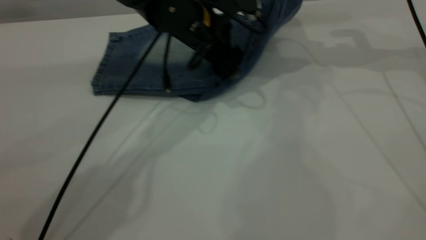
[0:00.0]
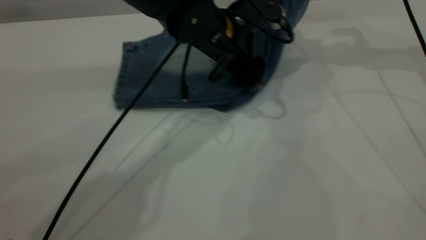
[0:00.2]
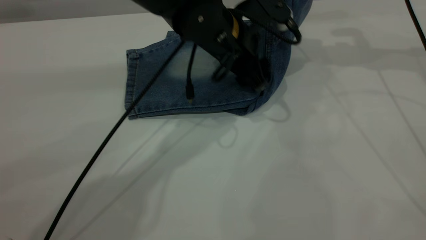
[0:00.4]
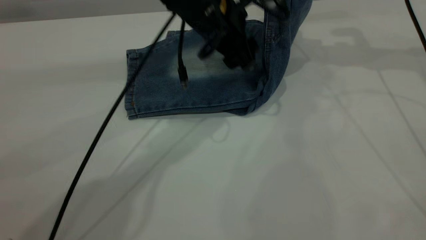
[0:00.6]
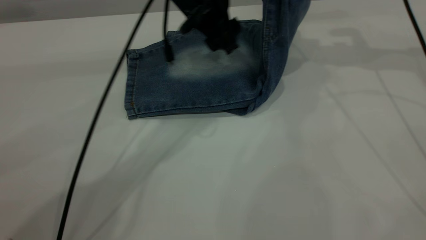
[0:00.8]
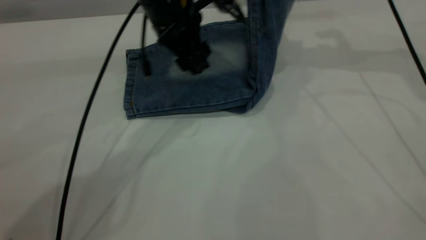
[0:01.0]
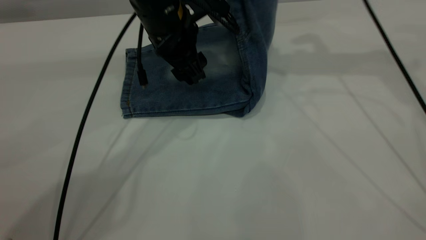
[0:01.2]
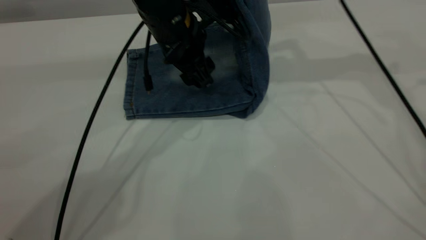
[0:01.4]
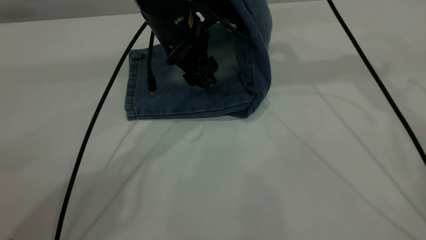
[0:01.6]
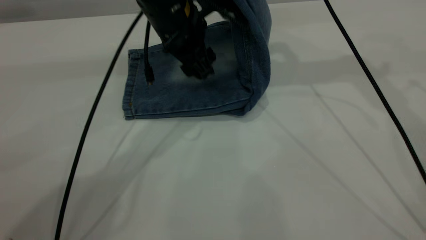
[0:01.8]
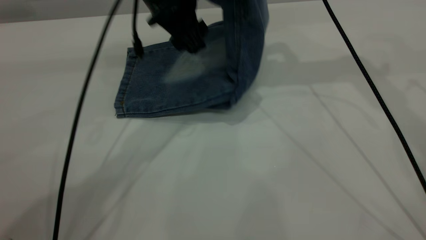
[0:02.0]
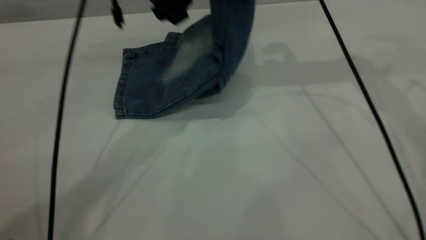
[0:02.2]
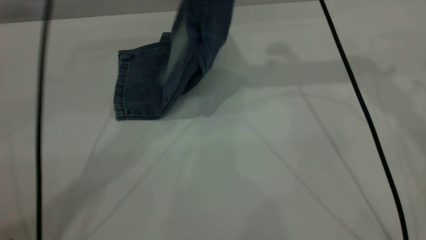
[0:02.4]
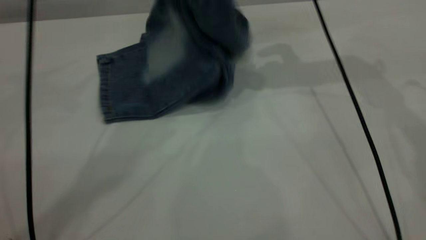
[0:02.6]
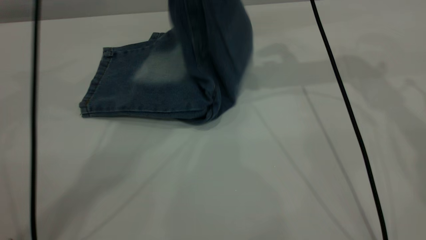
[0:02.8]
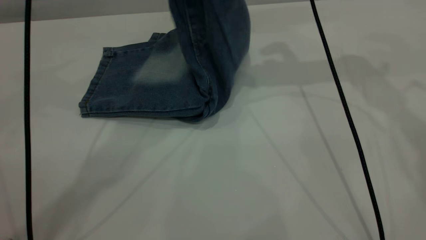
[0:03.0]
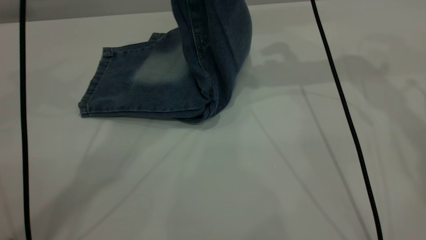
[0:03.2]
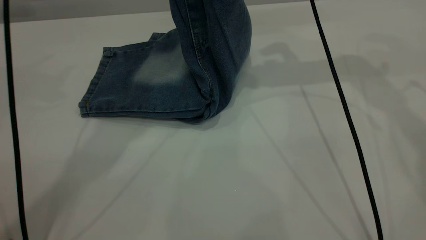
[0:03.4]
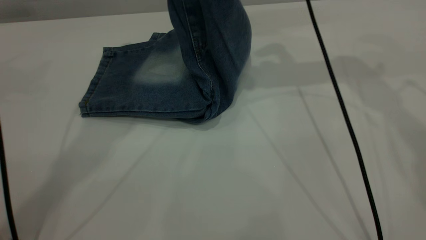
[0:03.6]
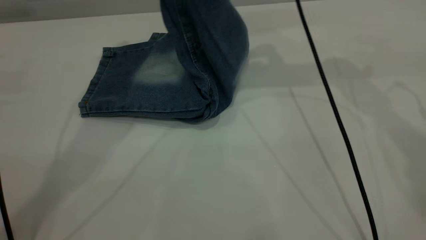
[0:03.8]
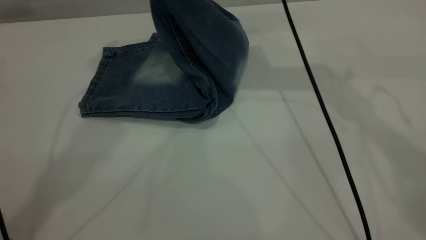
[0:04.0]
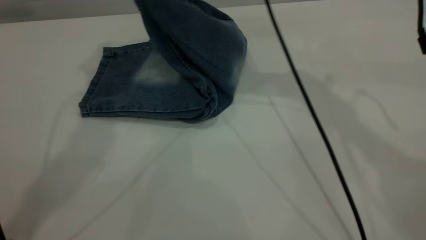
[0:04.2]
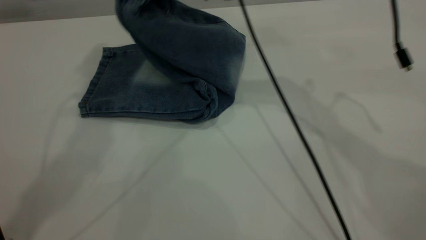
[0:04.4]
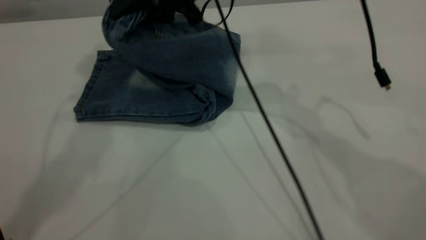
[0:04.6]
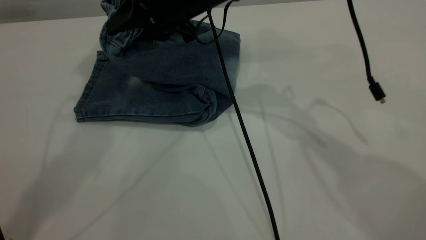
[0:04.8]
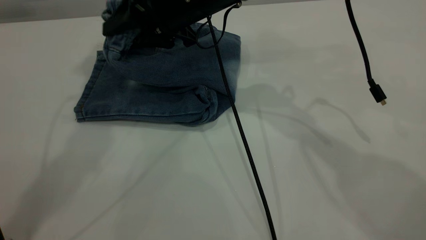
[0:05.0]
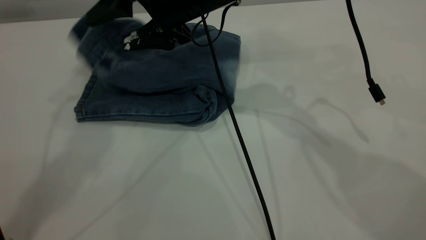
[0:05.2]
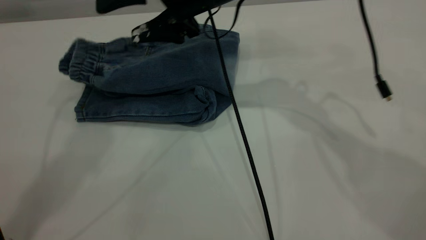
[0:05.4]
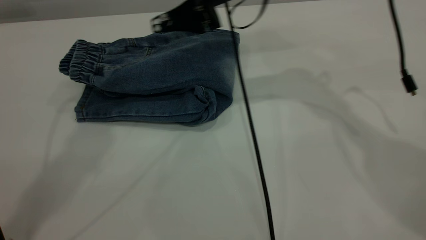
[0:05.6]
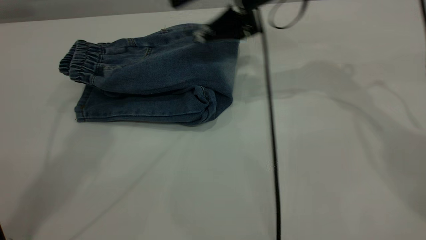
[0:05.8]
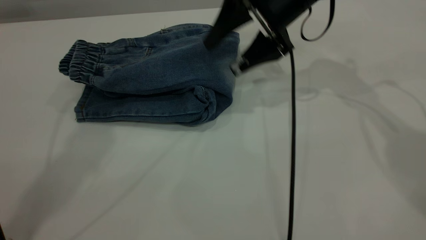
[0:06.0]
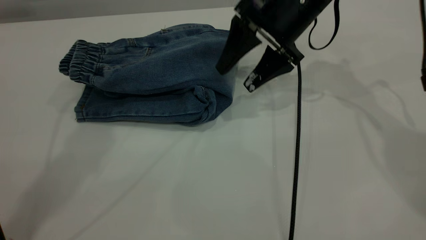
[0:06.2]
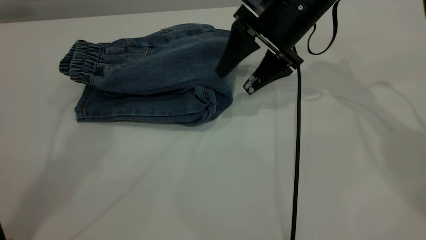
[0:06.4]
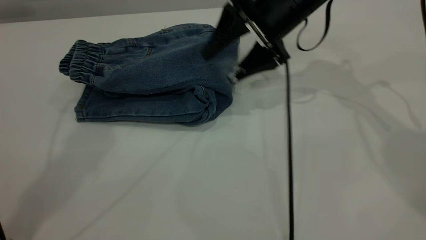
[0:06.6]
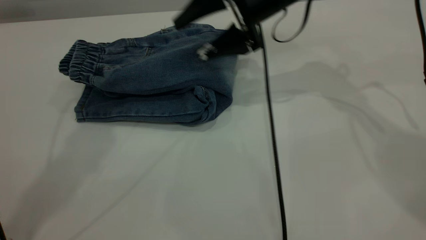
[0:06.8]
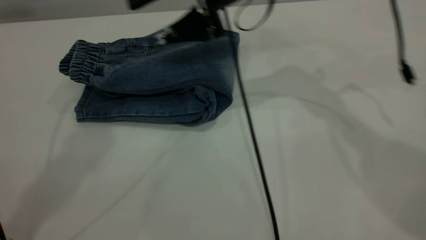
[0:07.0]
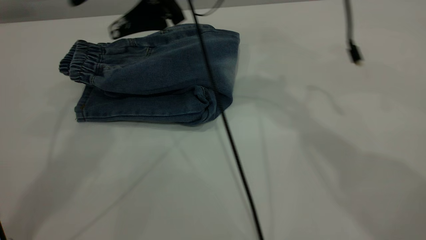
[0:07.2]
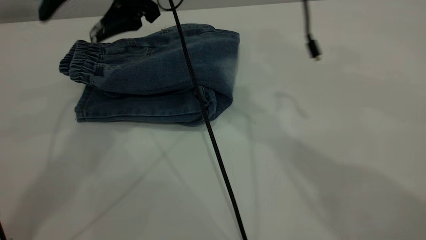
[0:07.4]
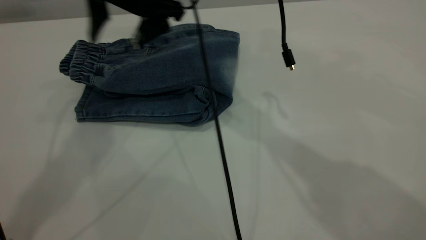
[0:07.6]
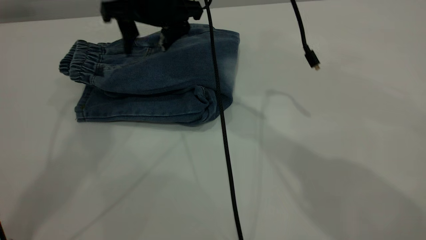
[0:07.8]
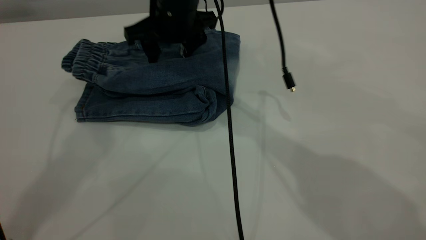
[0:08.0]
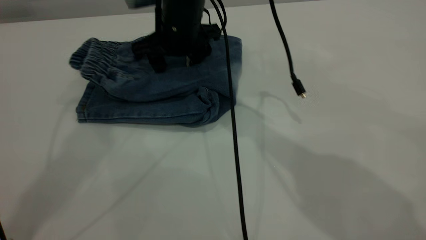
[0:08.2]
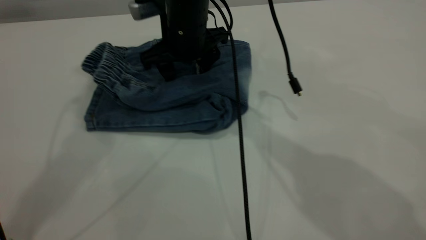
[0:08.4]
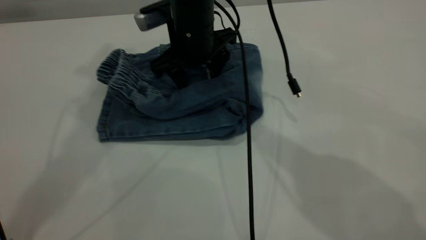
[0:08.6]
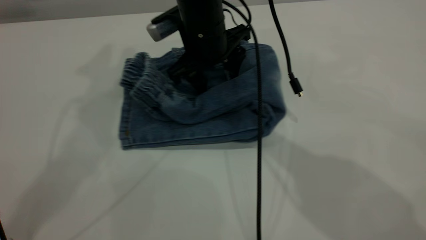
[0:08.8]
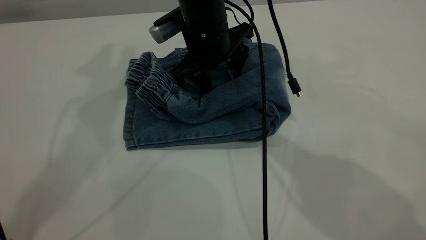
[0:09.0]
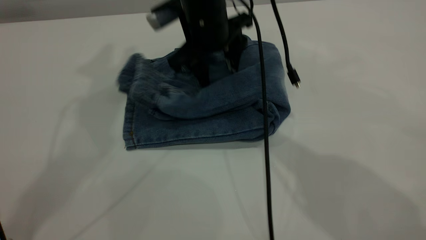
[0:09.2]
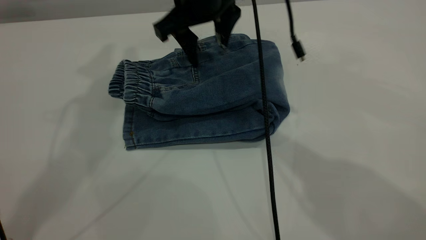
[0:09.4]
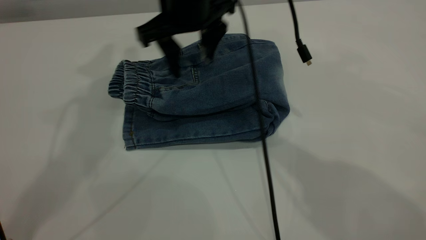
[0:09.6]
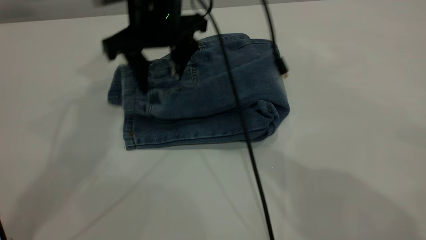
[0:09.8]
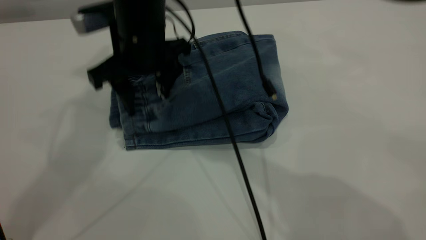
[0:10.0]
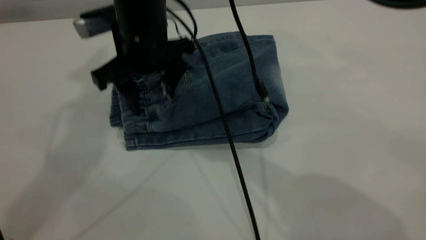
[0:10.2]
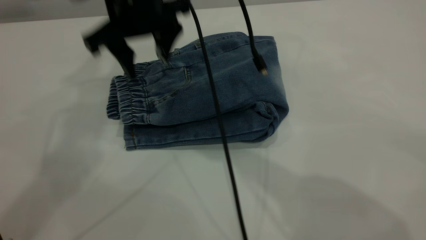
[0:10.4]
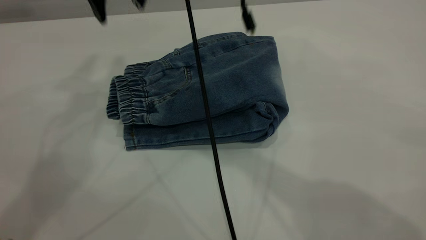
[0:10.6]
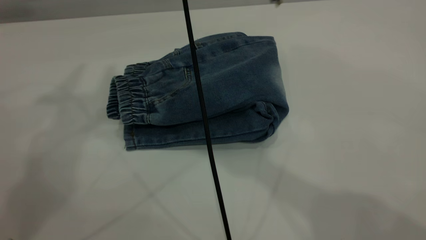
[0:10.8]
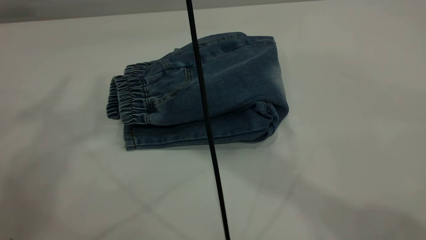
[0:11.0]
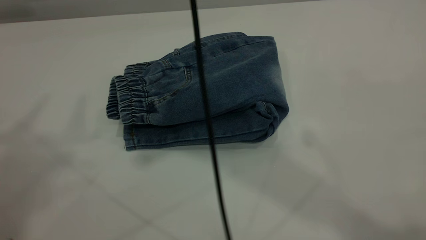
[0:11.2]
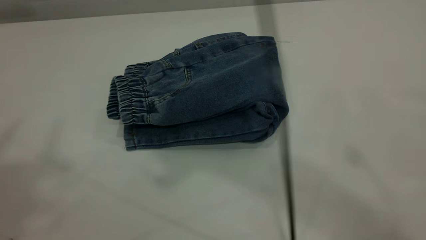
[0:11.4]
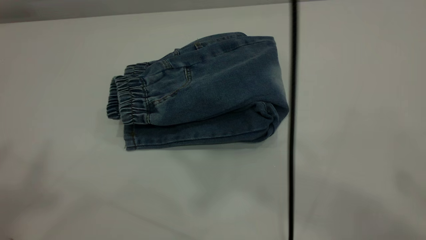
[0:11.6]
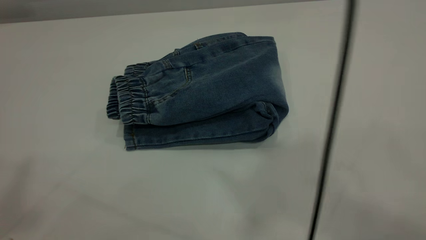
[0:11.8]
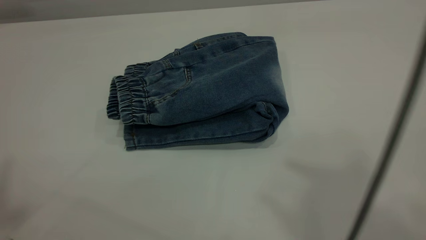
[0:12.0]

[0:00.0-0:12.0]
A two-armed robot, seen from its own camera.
Step, 0:00.0 to 0:05.6: Fold your pants from right to left.
0:00.0 to 0:01.6: The right gripper heads to the left, covering roughly 15 cm.
0:01.6 to 0:03.0: The left gripper is displaced upward by approximately 20 cm.
0:03.0 to 0:04.4: The right gripper heads to the left, covering roughly 15 cm. The left gripper travels upward and to the left by approximately 15 cm.
0:04.4 to 0:06.0: The right gripper heads to the right and downward, covering approximately 15 cm, and opens its fingers.
0:06.0 to 0:07.6: The right gripper moves to the left, about 20 cm.
0:07.6 to 0:09.0: The right gripper shifts approximately 5 cm downward.
0:09.0 to 0:10.4: The right gripper swings up and down, about 10 cm each way, with 2 reversals.
0:10.4 to 0:12.0: The right gripper goes some 50 cm upward, backward and to the right, while the left gripper goes some 25 cm backward and to the left.
